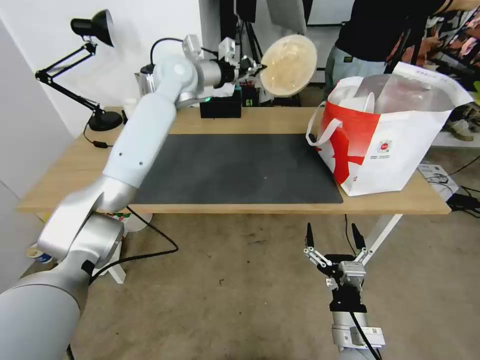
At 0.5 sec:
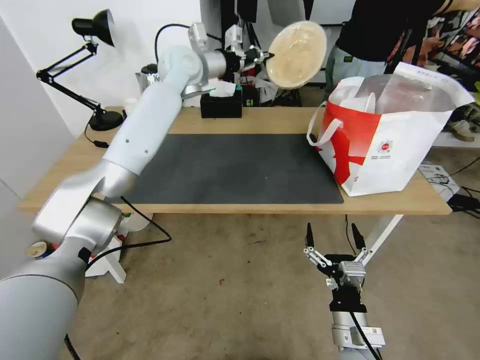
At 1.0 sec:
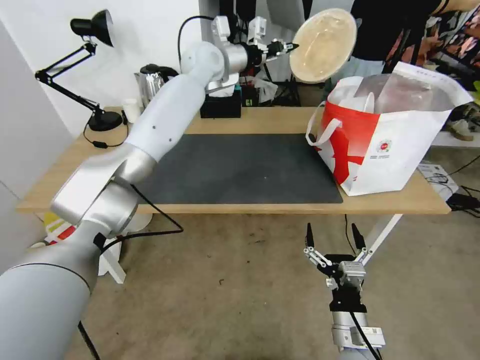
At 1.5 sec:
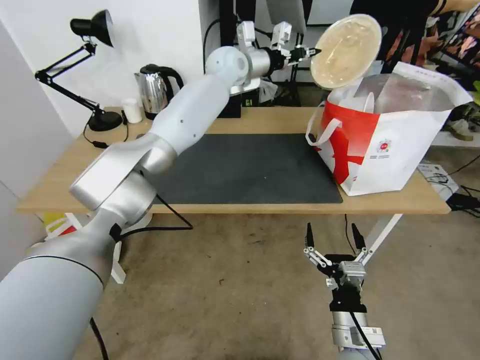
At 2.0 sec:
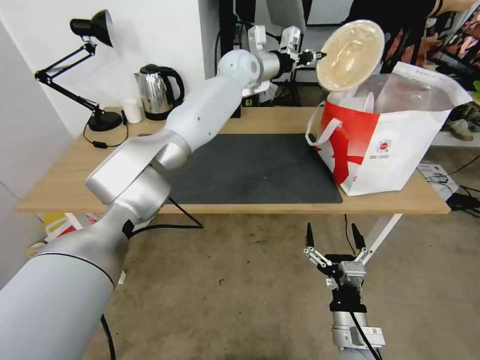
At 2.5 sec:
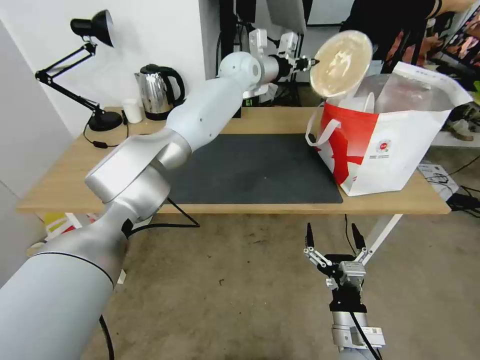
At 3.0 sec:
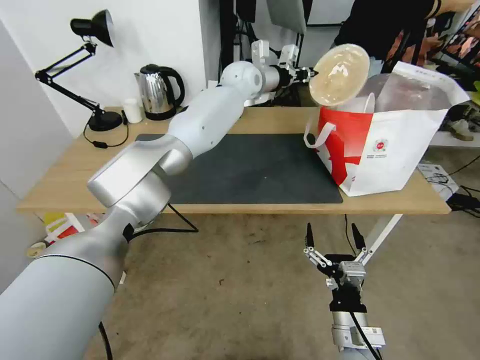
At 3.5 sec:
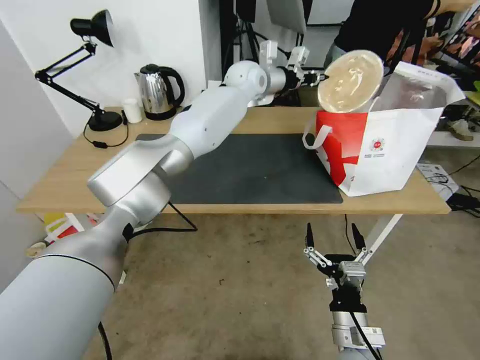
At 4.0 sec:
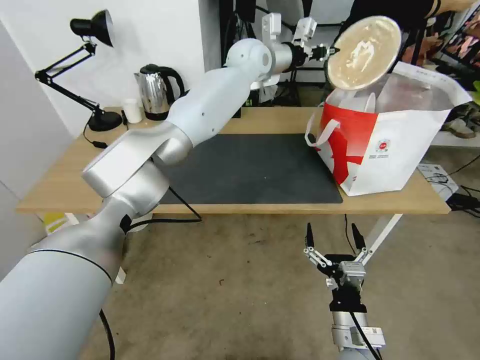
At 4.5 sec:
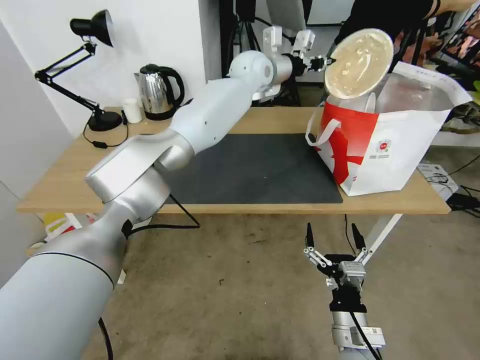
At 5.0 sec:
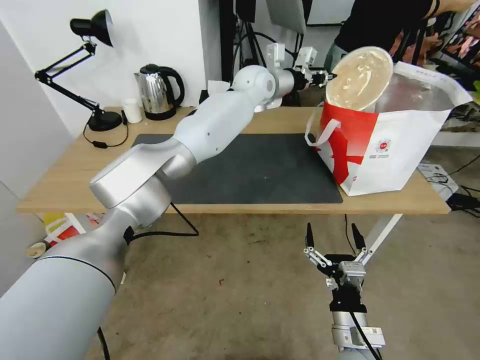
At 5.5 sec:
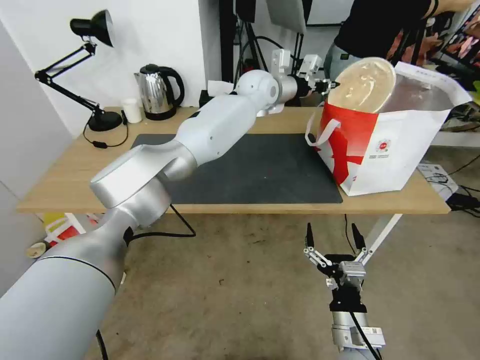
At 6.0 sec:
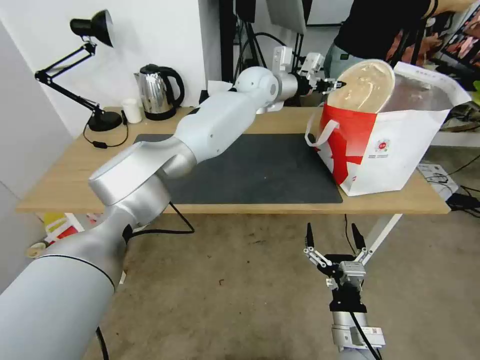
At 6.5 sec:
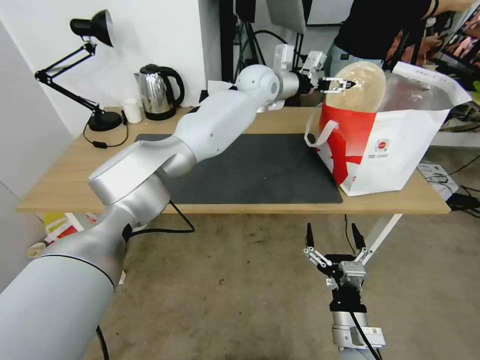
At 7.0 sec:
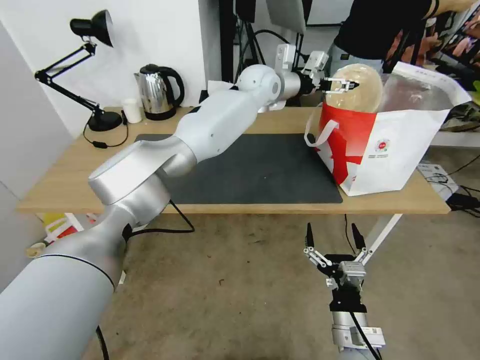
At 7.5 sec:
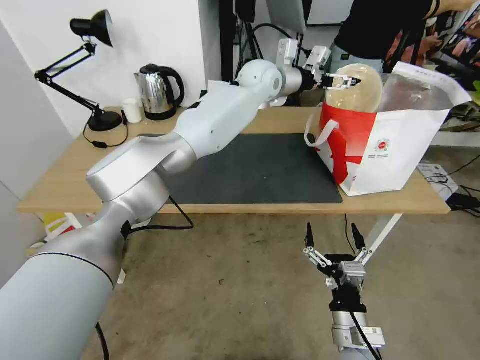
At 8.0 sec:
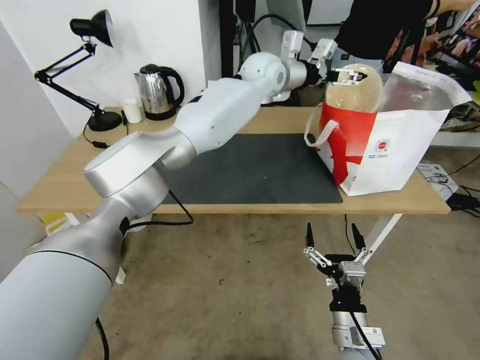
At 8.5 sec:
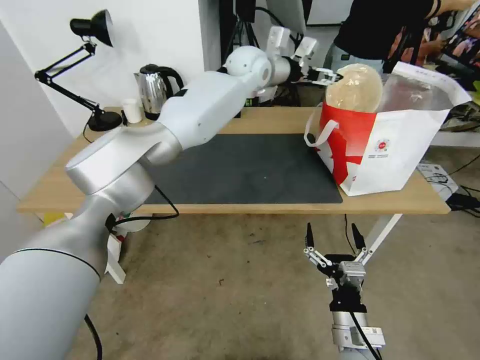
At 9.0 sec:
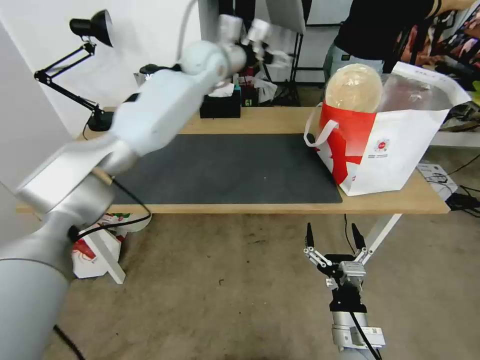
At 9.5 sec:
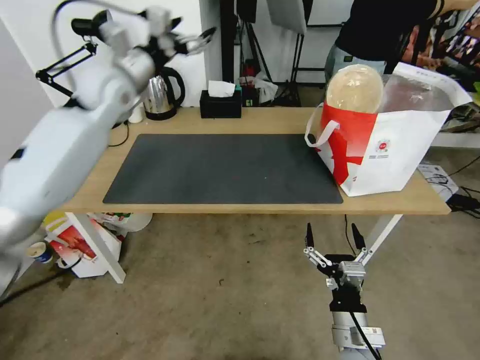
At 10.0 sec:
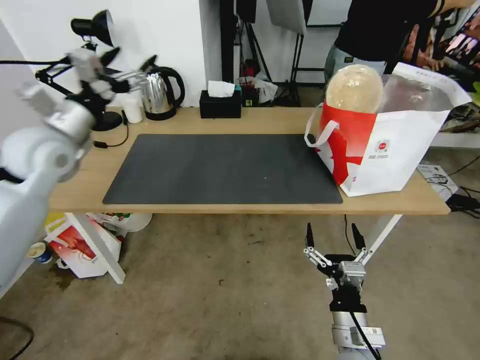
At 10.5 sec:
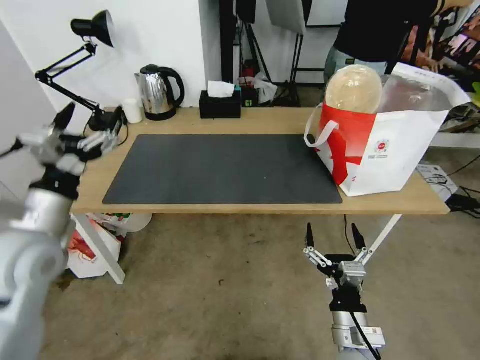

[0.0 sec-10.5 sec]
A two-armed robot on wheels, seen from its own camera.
Task of the whole recording: Pick up the trash from the table and place it into the takeout bag.
0.0 sec to 2.0 sec: The left gripper goes approximately 15 cm to the right and forward.
2.0 sec to 4.0 sec: The grippers stay close to where they were, moving slightly.
4.0 sec to 6.5 sec: The left gripper is displaced downward by about 5 cm, and opens up.
6.5 sec to 8.5 sec: The grippers make only small movements.
8.5 sec to 10.5 sec: The left gripper is displaced backward and to the left by approximately 50 cm.

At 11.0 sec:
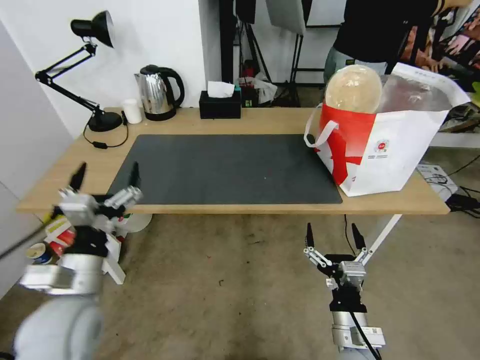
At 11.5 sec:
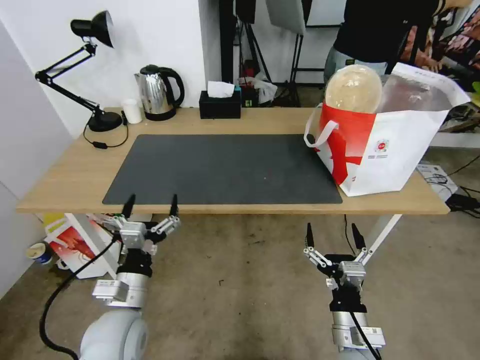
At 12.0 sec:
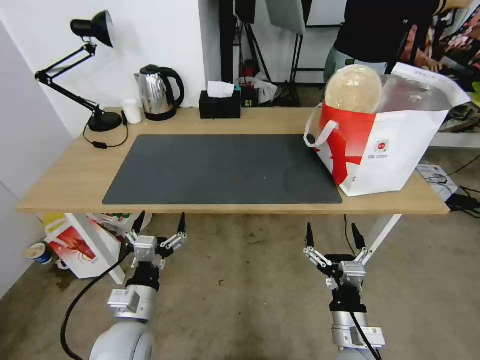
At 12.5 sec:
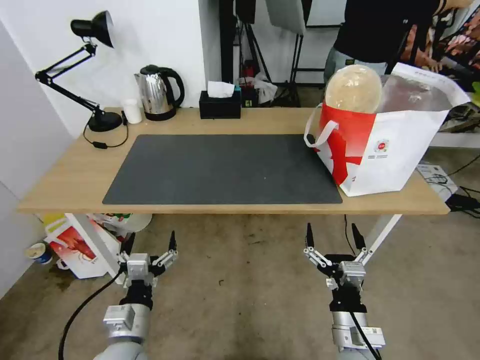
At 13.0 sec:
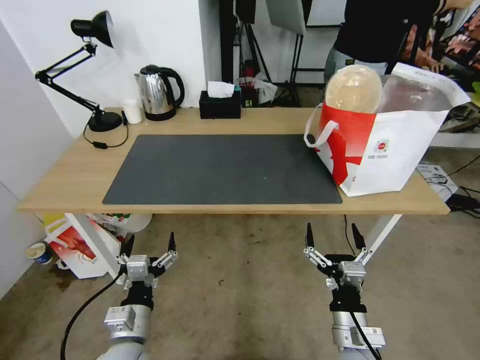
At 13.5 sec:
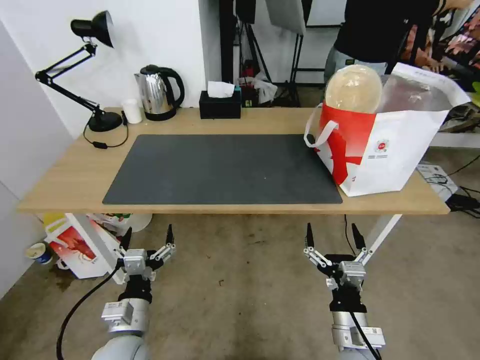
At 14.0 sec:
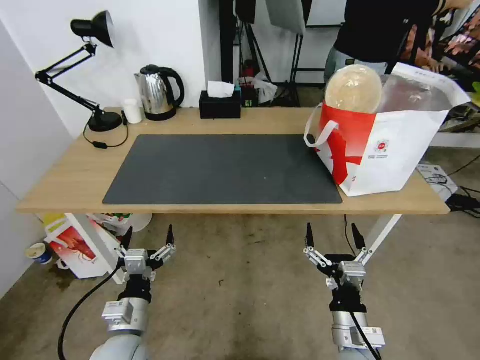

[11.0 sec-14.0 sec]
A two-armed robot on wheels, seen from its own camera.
Task of the whole recording: Pick up the trash from the table and place it into the takeout bag.
11.0 sec to 12.5 sec: The left gripper shifts roughly 15 cm downward.
12.5 sec to 14.0 sec: There are only small adjustments of the grippers.

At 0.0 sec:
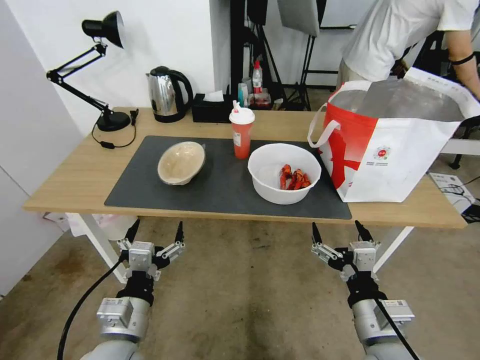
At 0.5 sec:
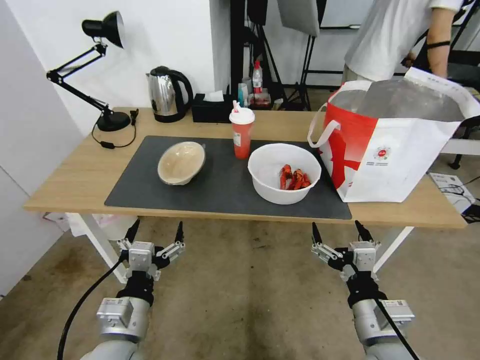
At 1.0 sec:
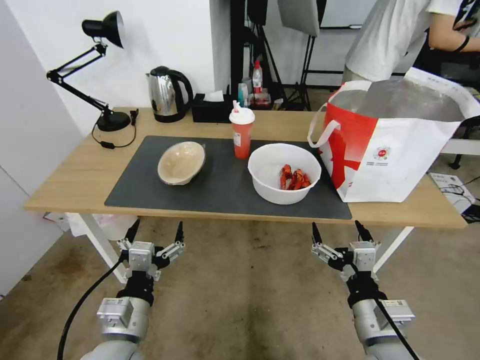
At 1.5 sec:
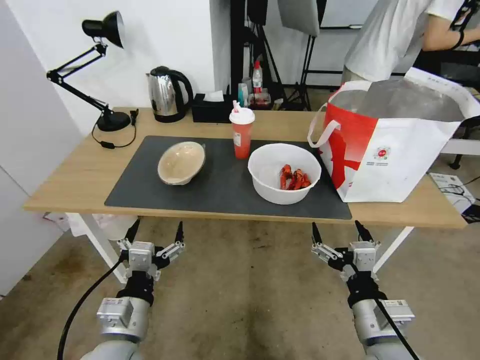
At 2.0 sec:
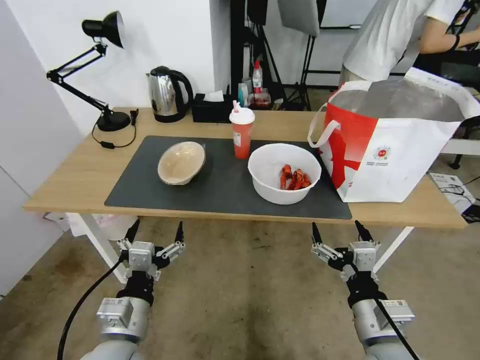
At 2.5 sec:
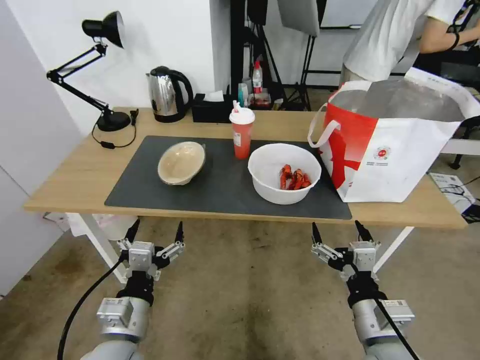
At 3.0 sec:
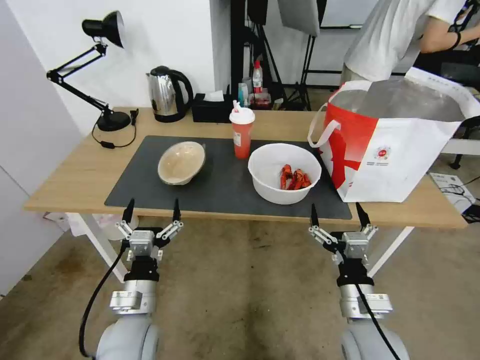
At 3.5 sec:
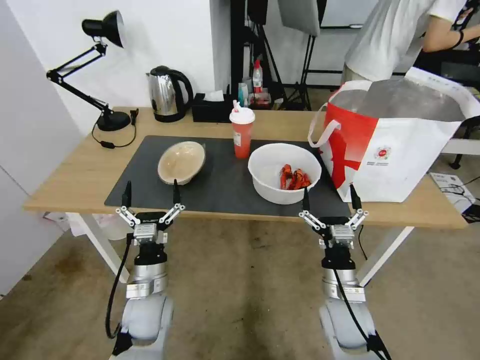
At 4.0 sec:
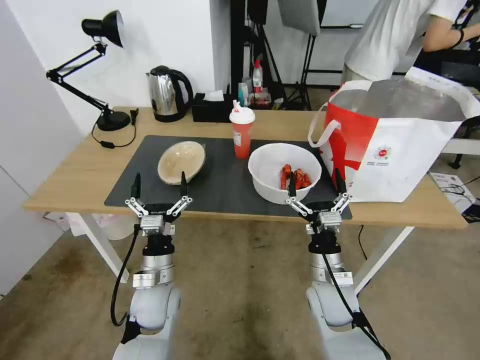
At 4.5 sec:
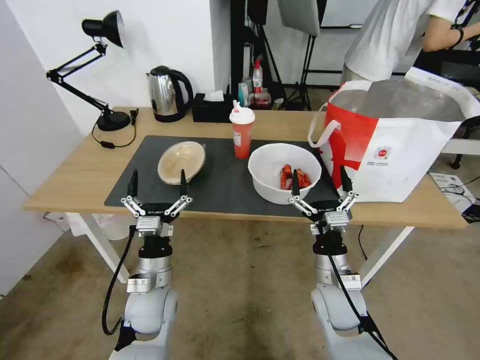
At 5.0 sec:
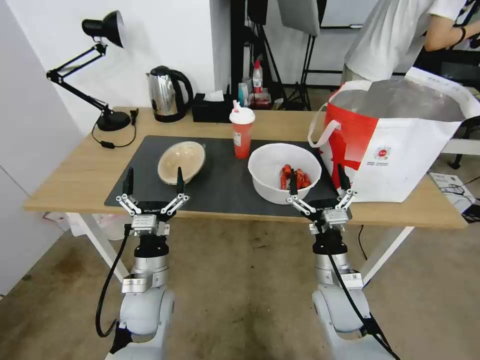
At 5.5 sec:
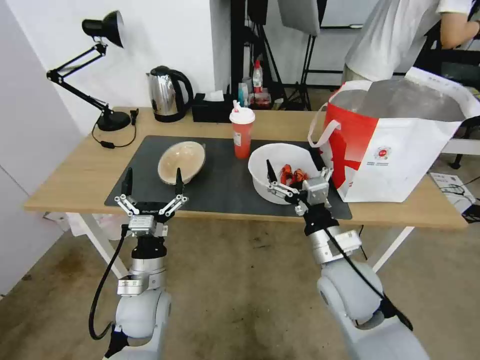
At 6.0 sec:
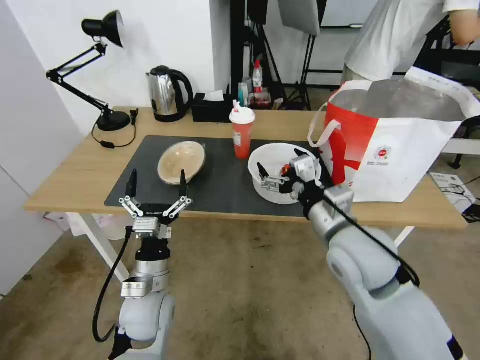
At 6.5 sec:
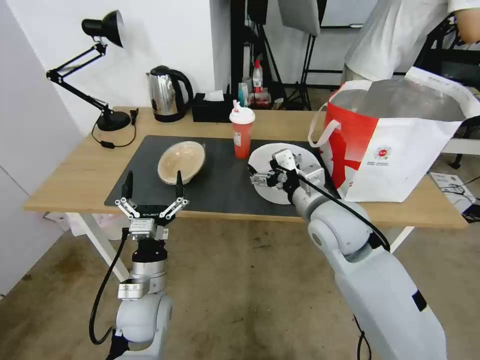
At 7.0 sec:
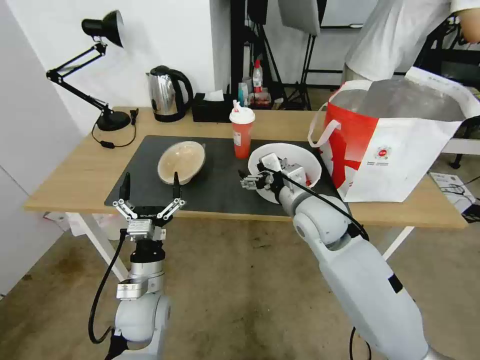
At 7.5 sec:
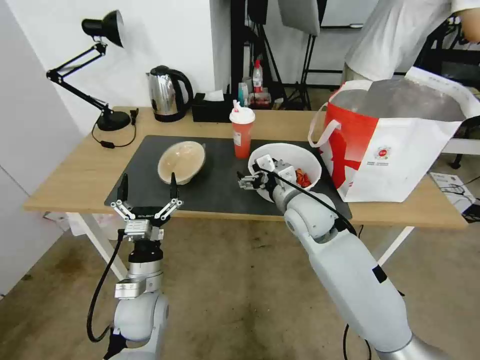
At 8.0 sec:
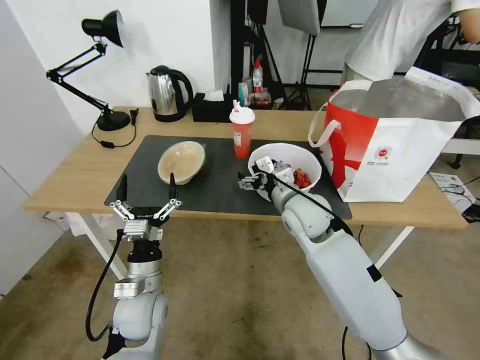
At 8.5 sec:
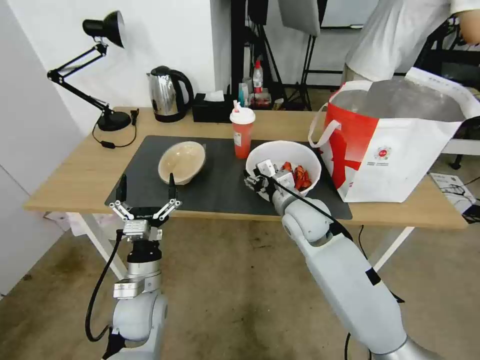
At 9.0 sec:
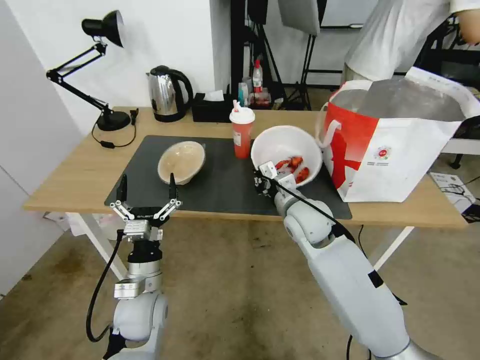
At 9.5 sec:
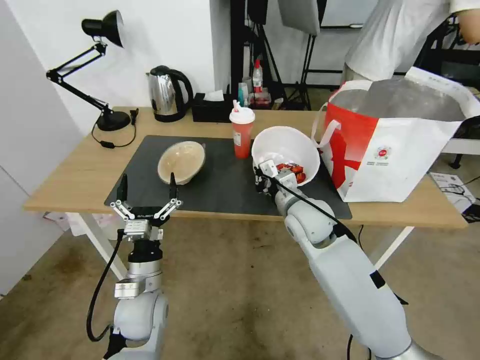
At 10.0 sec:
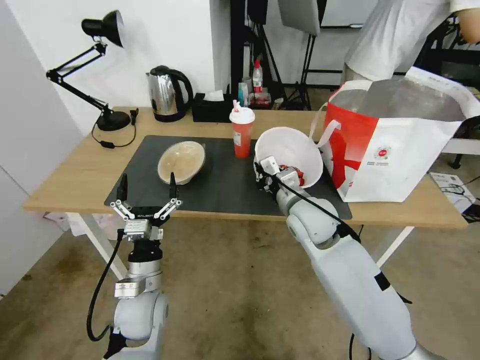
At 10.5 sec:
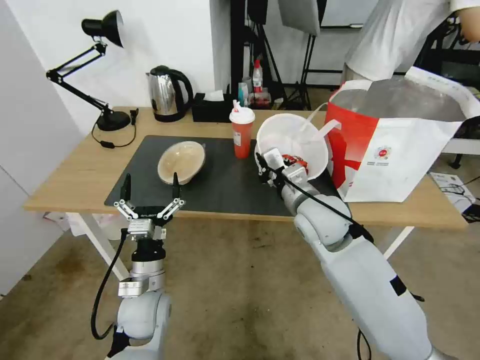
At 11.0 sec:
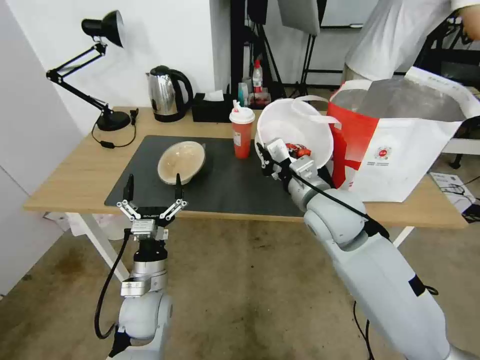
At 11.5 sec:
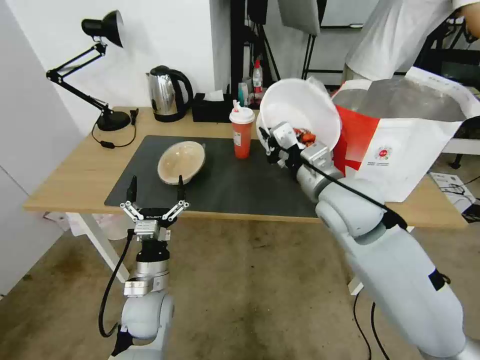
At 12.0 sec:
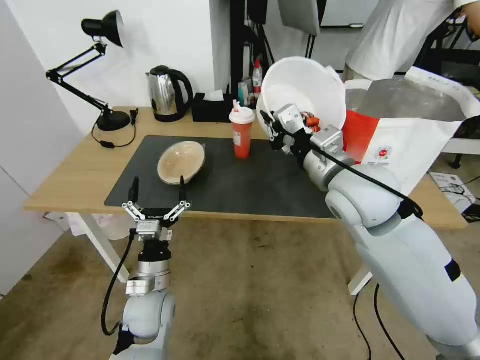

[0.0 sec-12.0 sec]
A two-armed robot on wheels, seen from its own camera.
Task of the whole recording: Pick up the trash from the table and place it into the takeout bag.
2.0 sec to 4.0 sec: The two grippers go about 15 cm forward and downward.
4.0 sec to 6.0 sec: The right gripper goes approximately 20 cm upward.
6.0 sec to 8.0 sec: The right gripper travels forward, downward and to the left by about 15 cm.
8.0 sec to 10.0 sec: The right gripper closes.
10.0 sec to 12.0 sec: The right gripper is displaced upward by roughly 15 cm.
